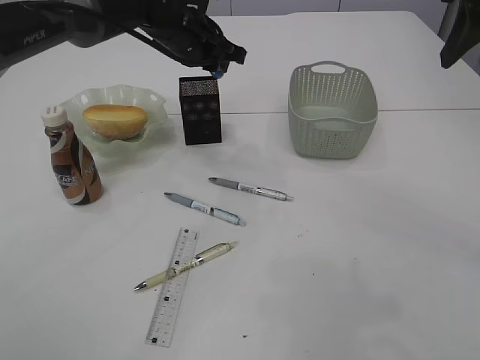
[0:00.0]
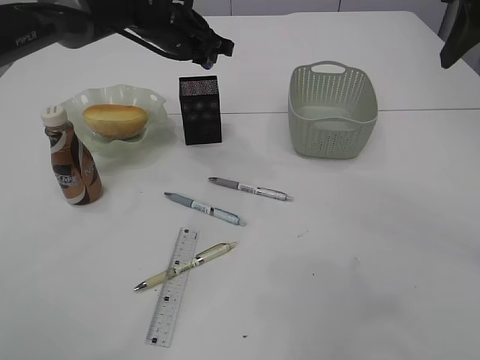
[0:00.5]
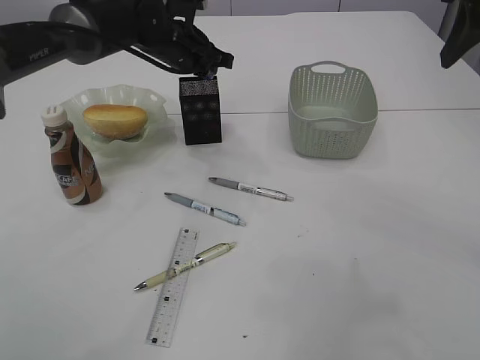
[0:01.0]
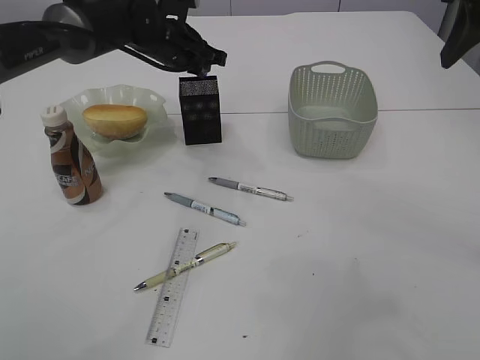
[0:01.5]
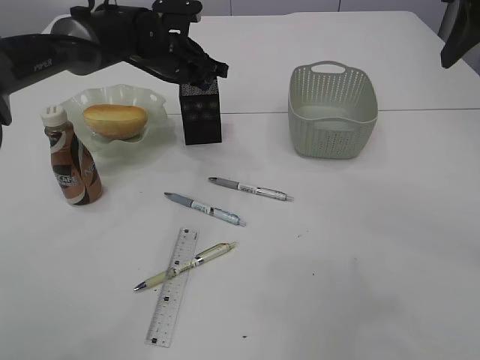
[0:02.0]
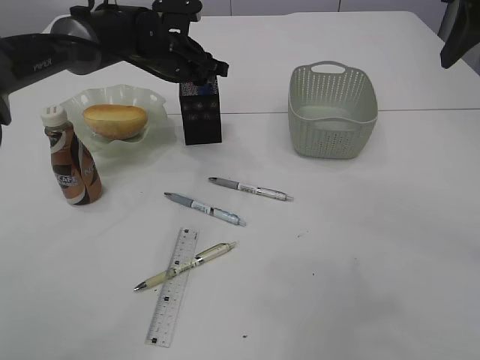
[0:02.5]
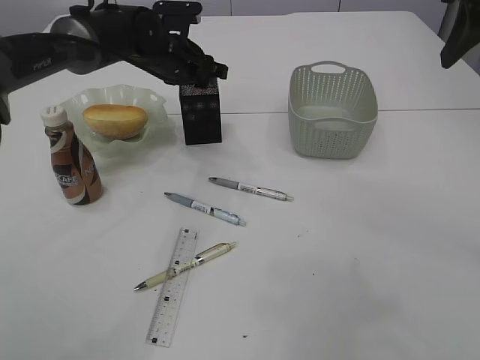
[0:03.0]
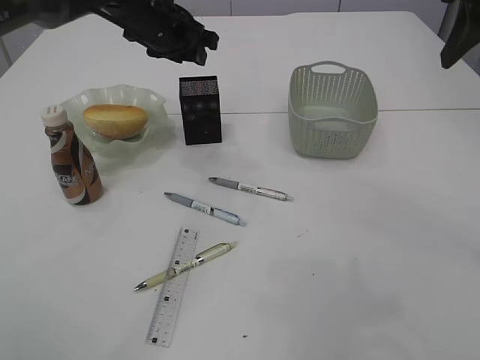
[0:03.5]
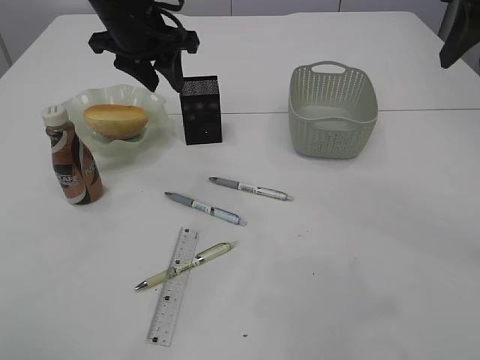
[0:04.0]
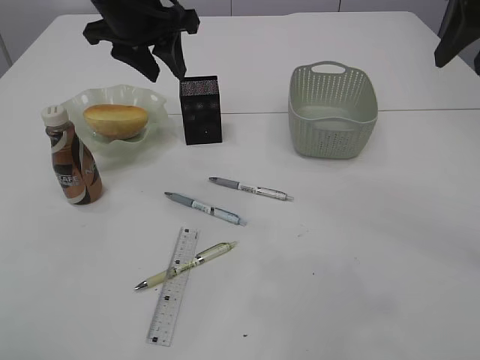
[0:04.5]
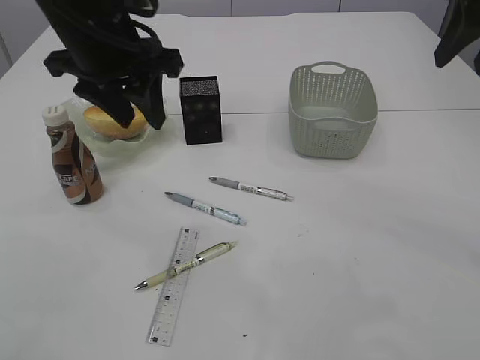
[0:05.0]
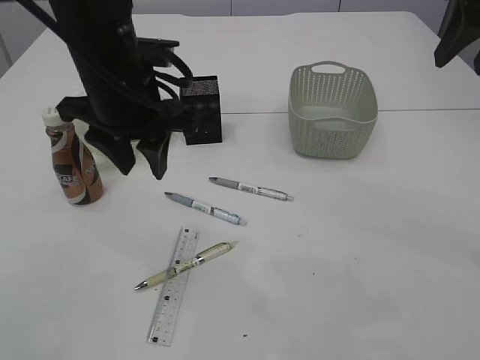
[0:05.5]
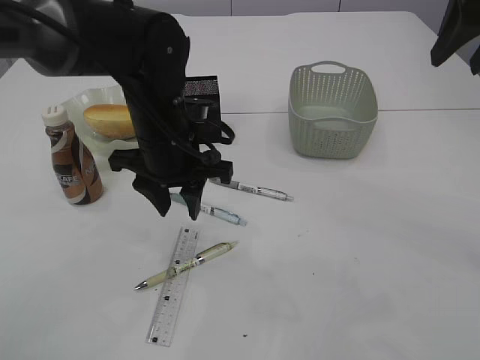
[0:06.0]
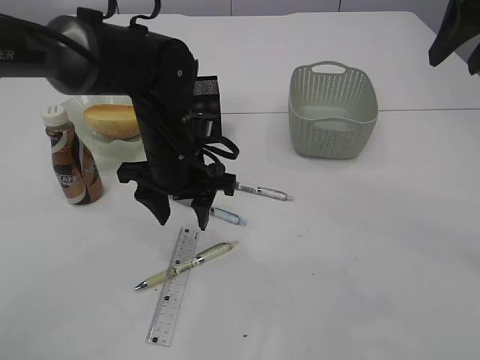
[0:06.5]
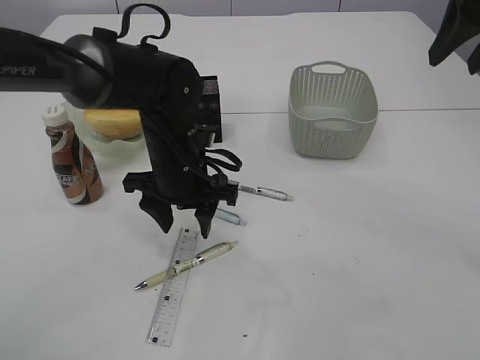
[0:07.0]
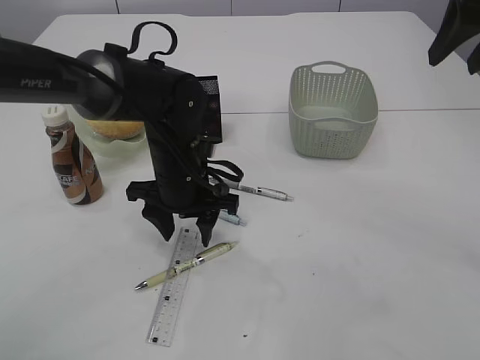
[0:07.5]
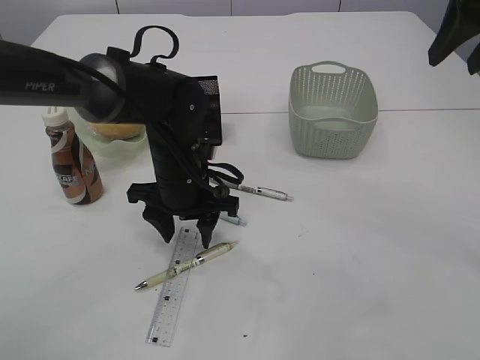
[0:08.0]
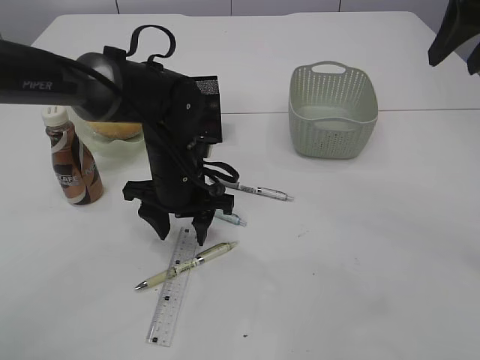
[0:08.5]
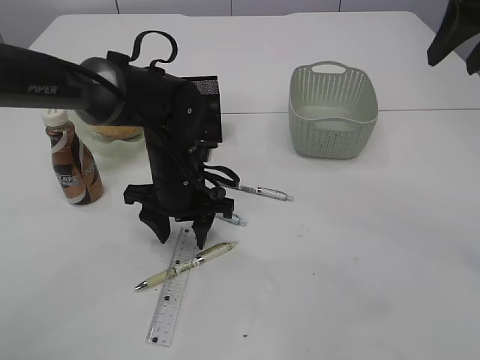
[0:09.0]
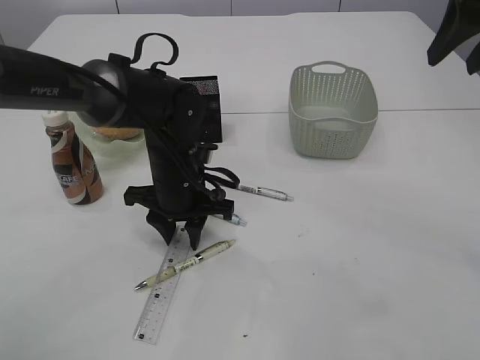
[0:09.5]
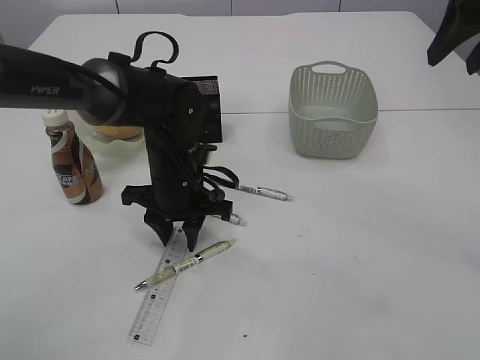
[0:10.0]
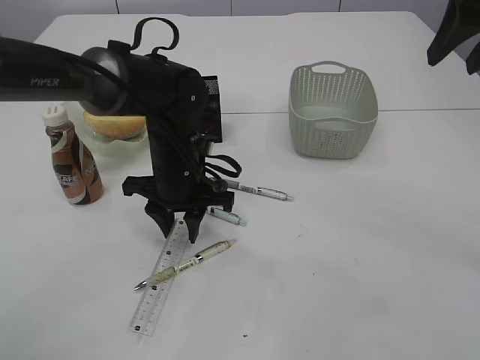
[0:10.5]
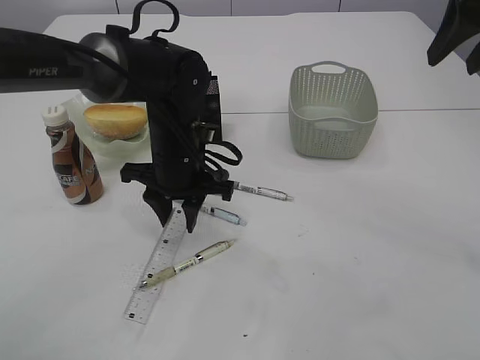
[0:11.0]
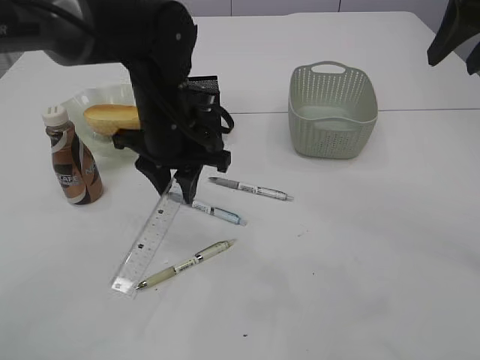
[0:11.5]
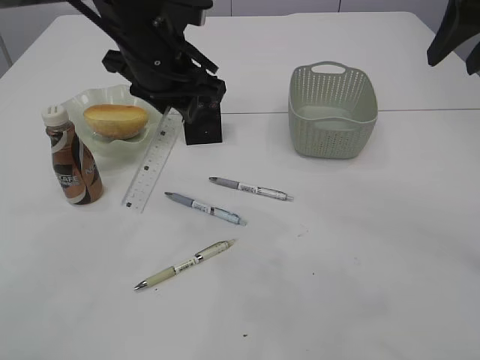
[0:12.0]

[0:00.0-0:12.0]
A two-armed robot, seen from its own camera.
Step, 0:00.0 to 0:03.0: Place the blue pencil sharpener into the pen holder.
Step, 0:03.5 to 0:12.0: pick up the ruler.
0:00.0 to 0:02.0: The left gripper changes place by roughly 5 cm.
0:02.0 to 0:04.0: The left gripper travels upward and backward by approximately 10 cm, and opens its fingers.
0:04.0 to 0:06.0: The left gripper shifts about 15 cm backward and downward.
0:06.0 to 0:08.0: The left gripper is displaced downward by approximately 5 cm.
0:08.0 to 0:10.0: The left gripper closes its fingers.
0:10.0 to 0:12.0: The left gripper shifts roughly 15 cm upward.

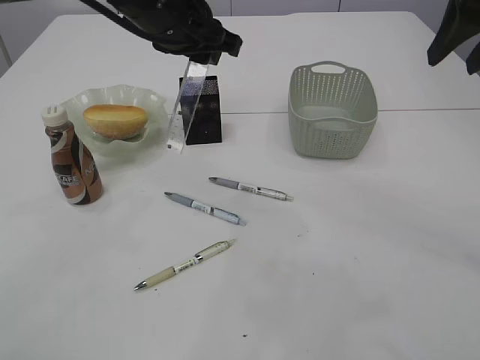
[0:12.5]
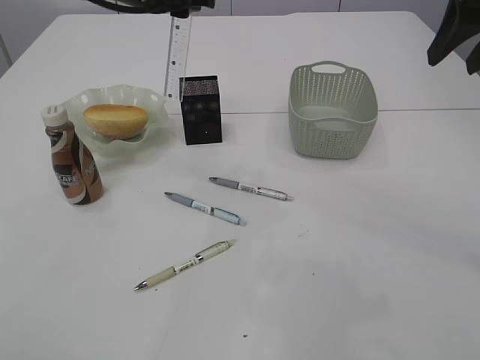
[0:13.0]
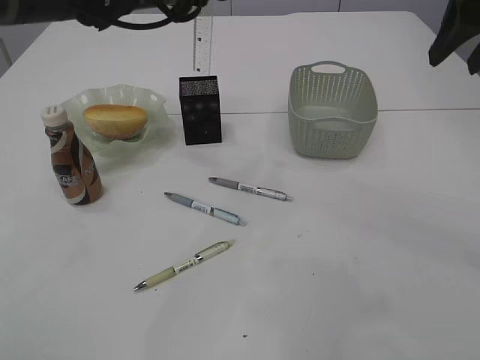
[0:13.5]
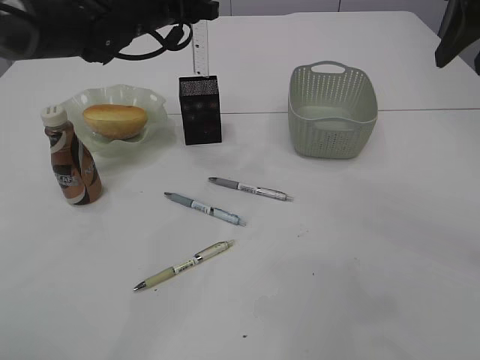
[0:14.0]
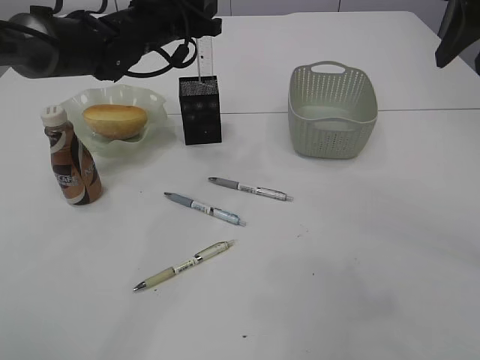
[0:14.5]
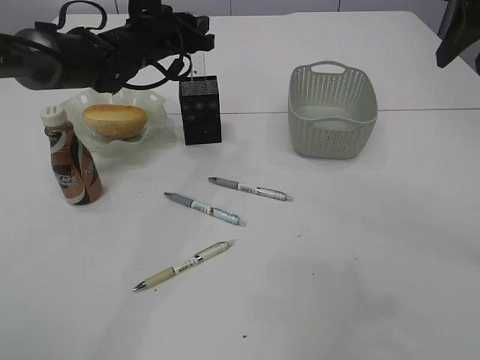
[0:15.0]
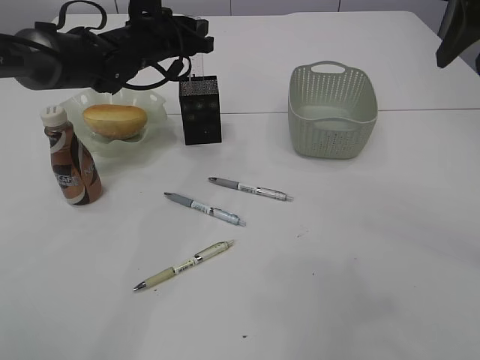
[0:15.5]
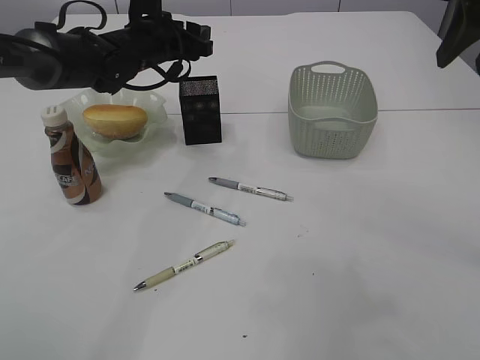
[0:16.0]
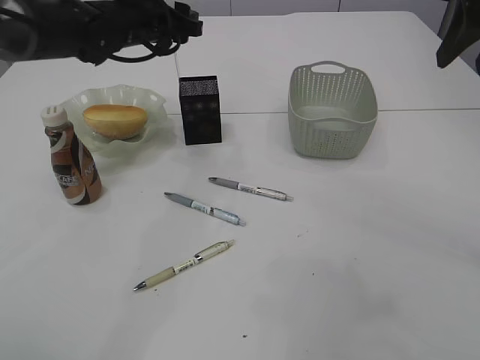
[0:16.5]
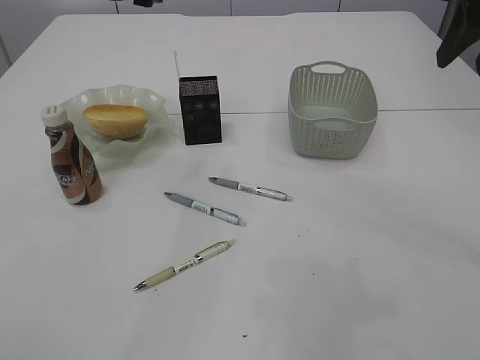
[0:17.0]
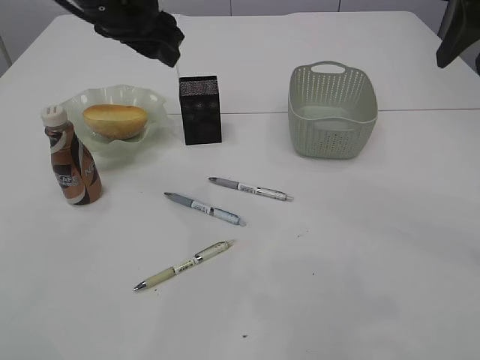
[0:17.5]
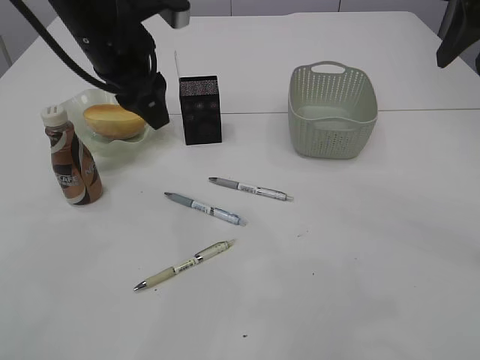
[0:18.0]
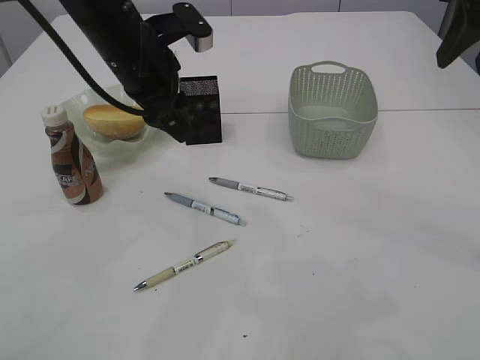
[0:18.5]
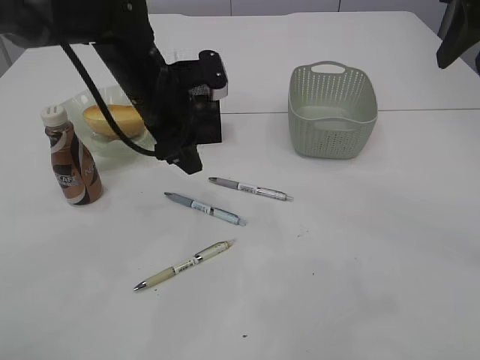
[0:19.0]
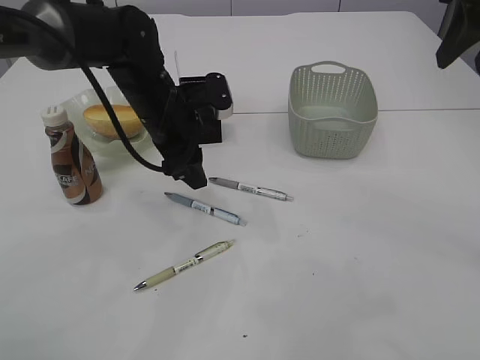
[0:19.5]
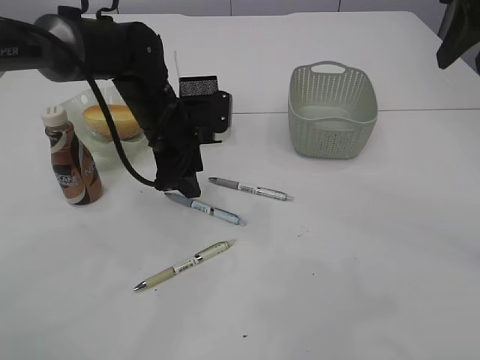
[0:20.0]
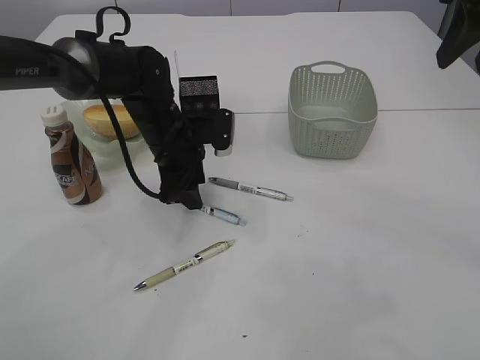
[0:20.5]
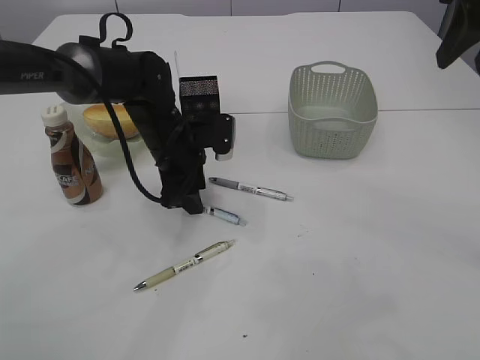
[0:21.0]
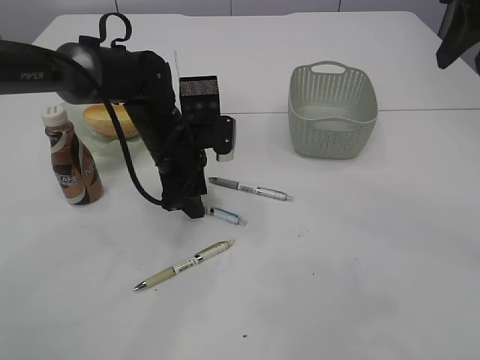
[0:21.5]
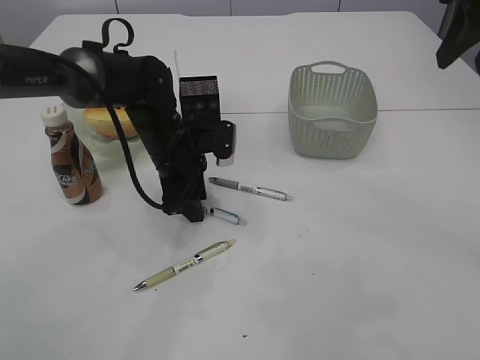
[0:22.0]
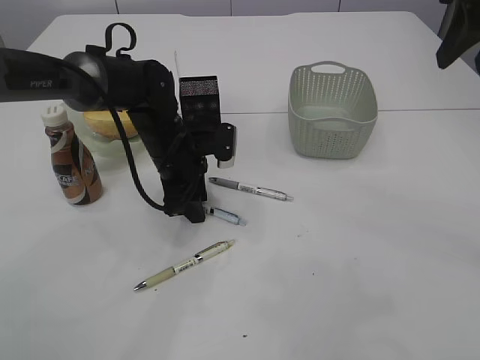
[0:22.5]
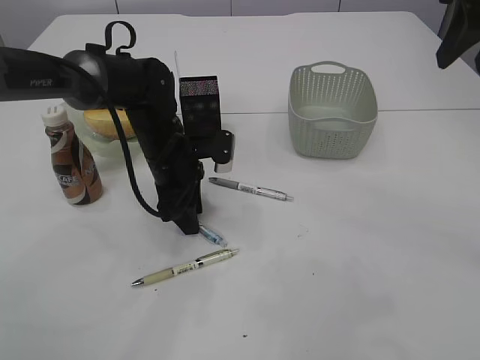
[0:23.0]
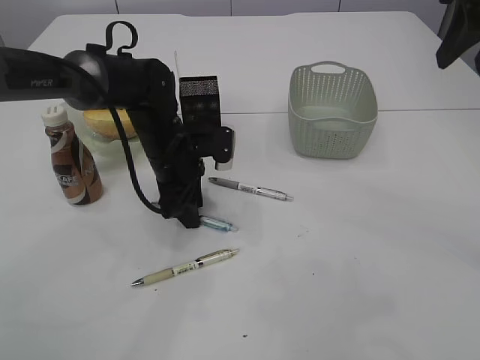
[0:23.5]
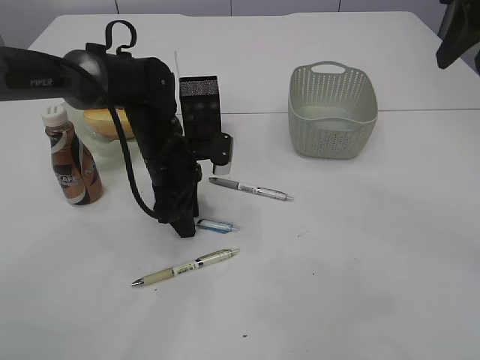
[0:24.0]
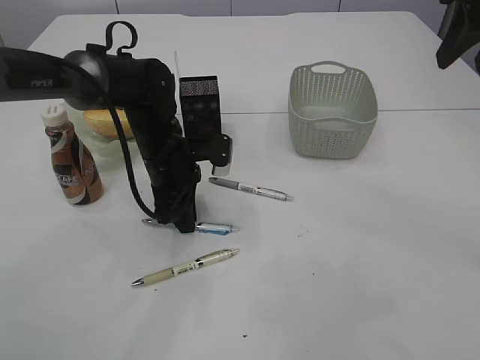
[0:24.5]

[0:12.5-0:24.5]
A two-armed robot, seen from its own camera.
Step, 0:12.5 to 0:16.5: Place the ruler into the pen holder.
0:12.5 to 0:14.5: The left gripper is displaced forward and downward by about 10 cm.
0:14.5 to 0:16.5: The grippers move only a little.
0:16.5 to 0:18.5: The left gripper heads backward, covering some 10 cm.
0:18.5 to 0:20.5: The left gripper moves downward, about 15 cm.
0:20.5 to 0:22.5: The grippers move only a little.
0:22.5 to 0:24.5: The left gripper closes its fingers.

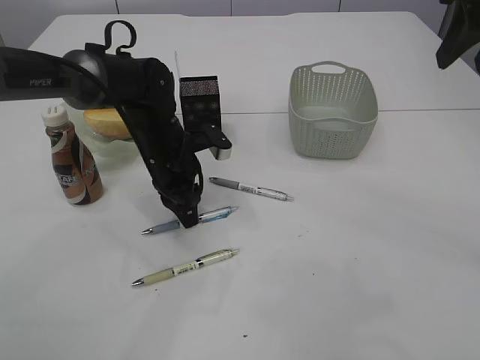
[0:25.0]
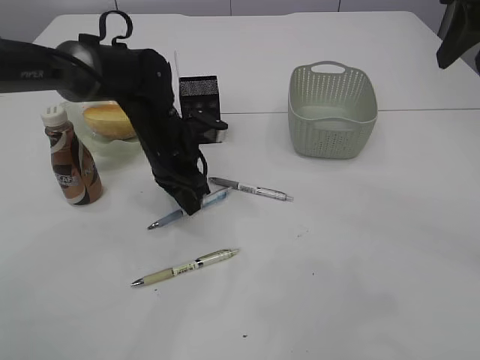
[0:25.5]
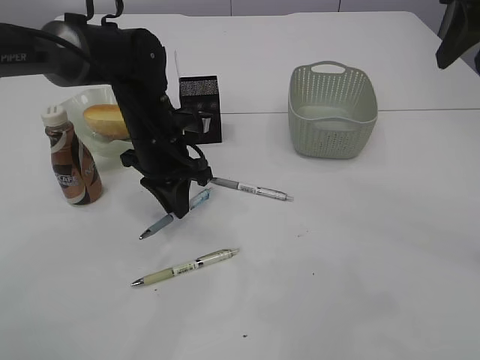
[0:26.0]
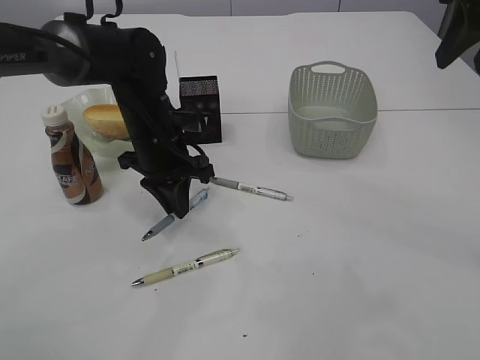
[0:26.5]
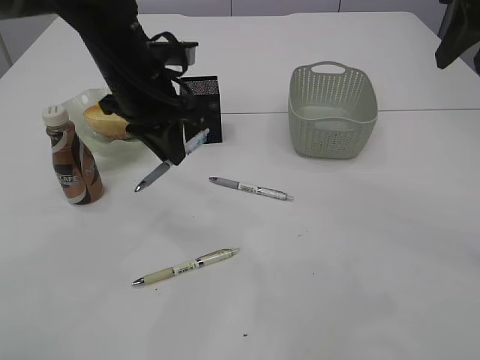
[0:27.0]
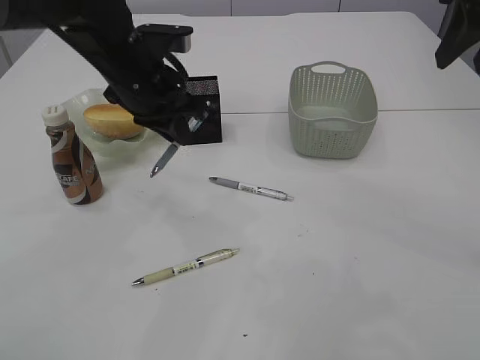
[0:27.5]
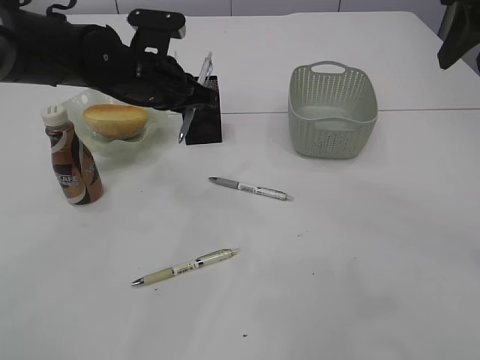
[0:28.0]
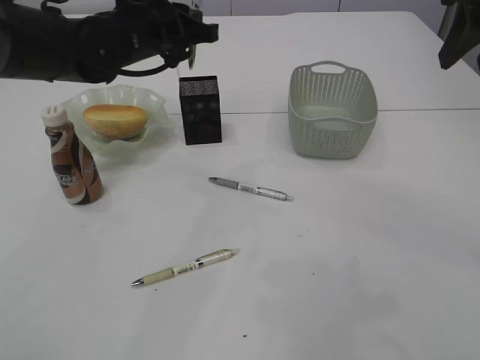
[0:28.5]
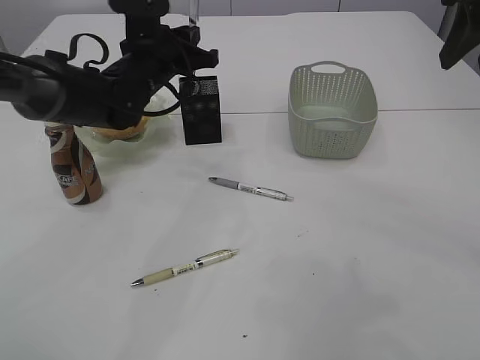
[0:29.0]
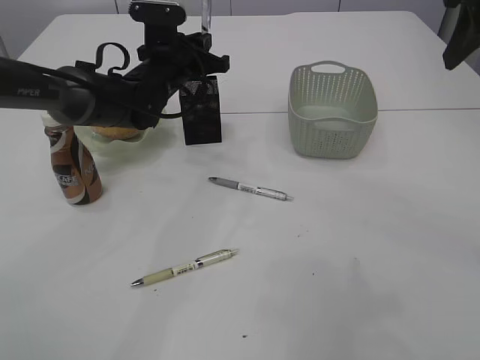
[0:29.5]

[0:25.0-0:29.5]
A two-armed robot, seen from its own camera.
0:25.0 to 0:27.0: The left gripper shifts some 15 cm upward.
0:27.0 to 0:29.5: The left gripper heads forward and downward, covering some 10 cm.
